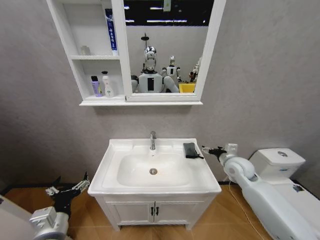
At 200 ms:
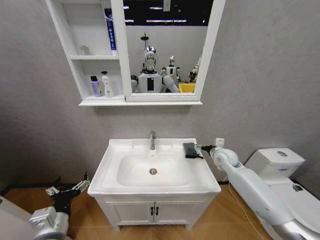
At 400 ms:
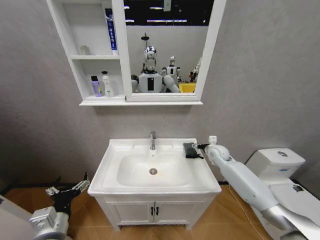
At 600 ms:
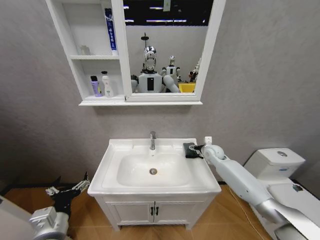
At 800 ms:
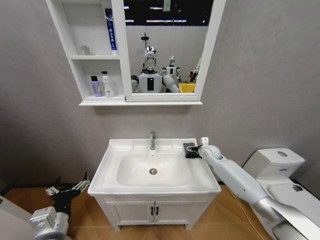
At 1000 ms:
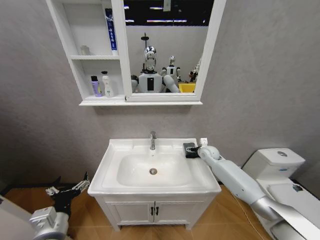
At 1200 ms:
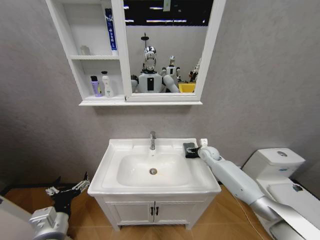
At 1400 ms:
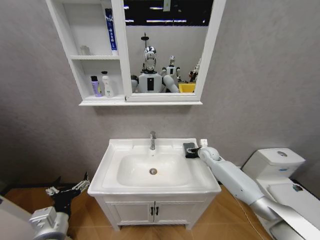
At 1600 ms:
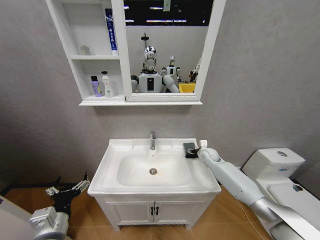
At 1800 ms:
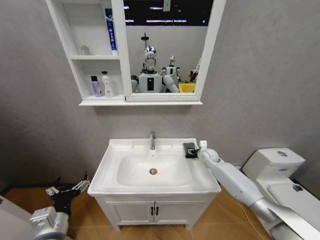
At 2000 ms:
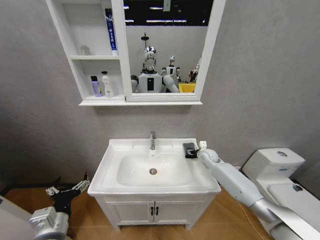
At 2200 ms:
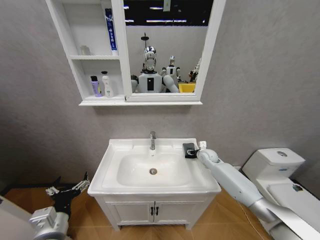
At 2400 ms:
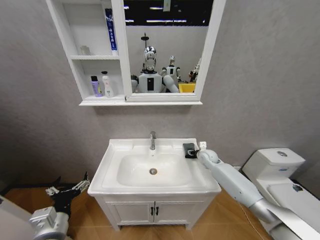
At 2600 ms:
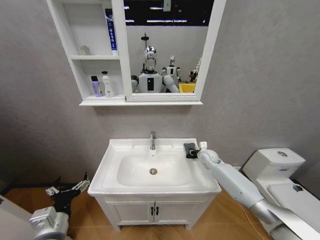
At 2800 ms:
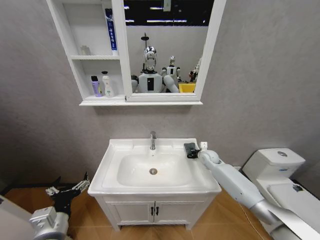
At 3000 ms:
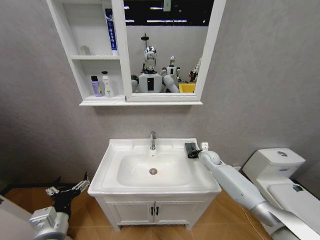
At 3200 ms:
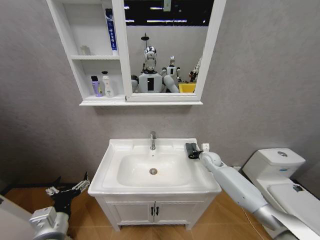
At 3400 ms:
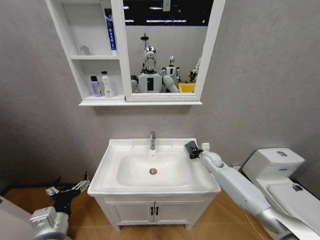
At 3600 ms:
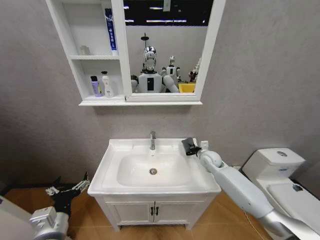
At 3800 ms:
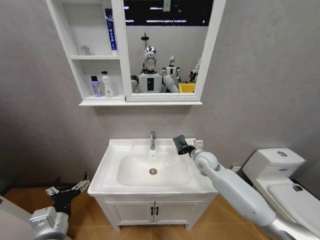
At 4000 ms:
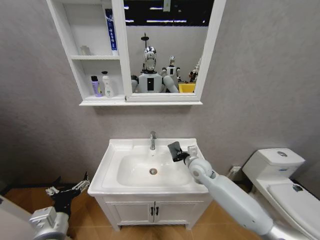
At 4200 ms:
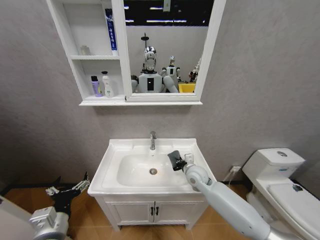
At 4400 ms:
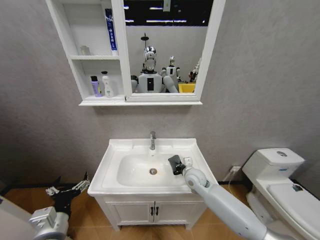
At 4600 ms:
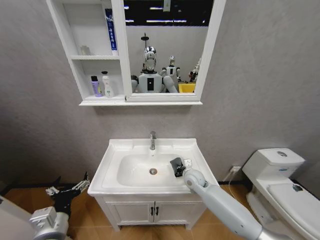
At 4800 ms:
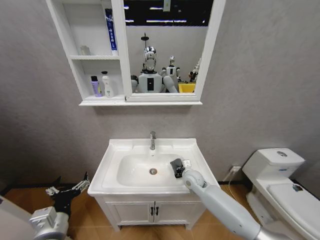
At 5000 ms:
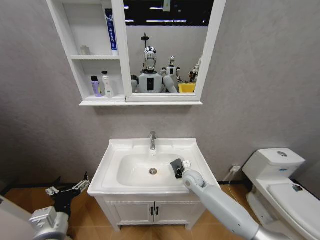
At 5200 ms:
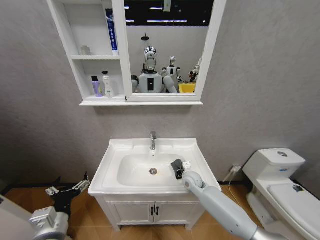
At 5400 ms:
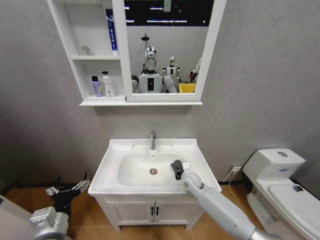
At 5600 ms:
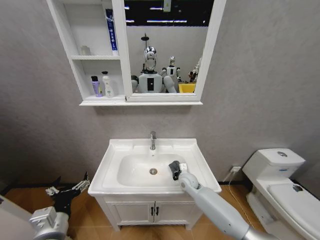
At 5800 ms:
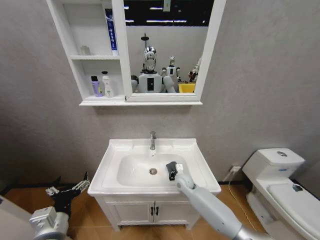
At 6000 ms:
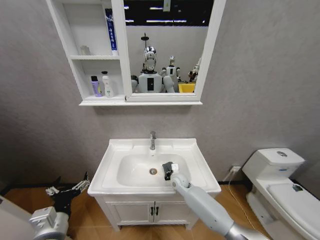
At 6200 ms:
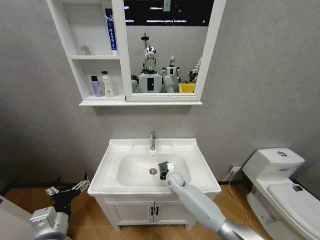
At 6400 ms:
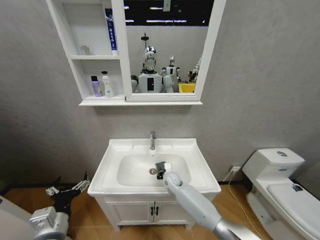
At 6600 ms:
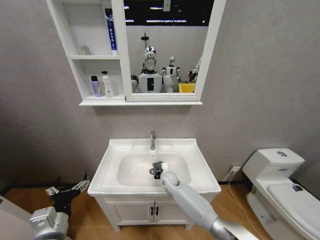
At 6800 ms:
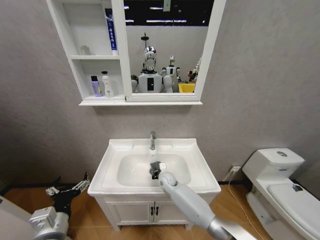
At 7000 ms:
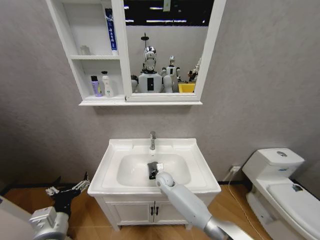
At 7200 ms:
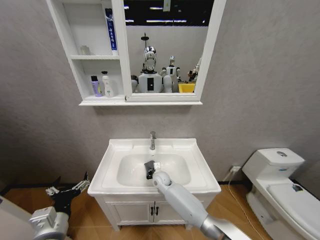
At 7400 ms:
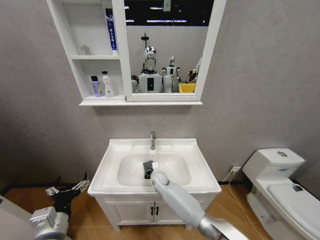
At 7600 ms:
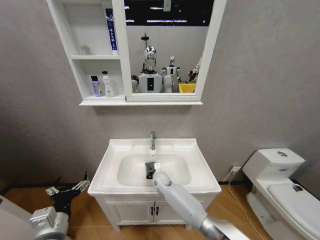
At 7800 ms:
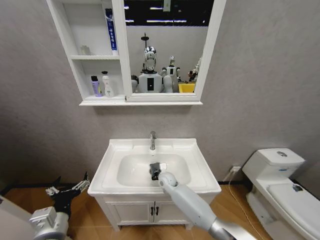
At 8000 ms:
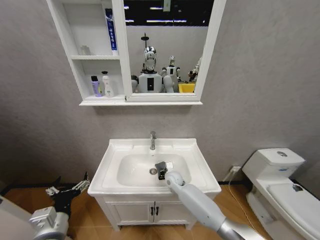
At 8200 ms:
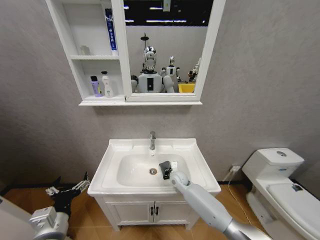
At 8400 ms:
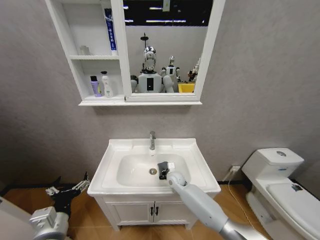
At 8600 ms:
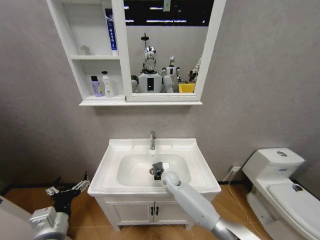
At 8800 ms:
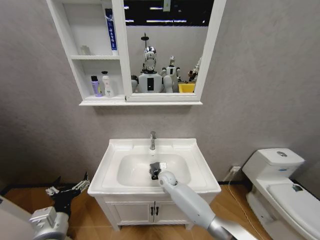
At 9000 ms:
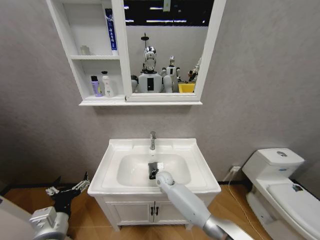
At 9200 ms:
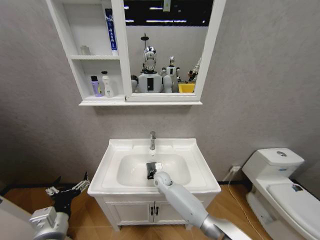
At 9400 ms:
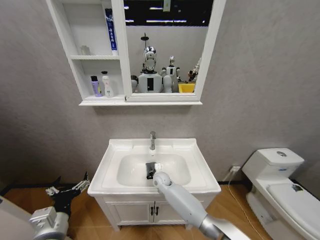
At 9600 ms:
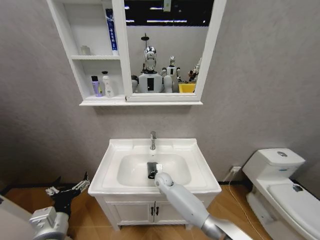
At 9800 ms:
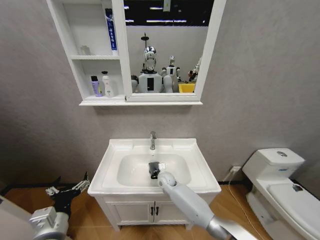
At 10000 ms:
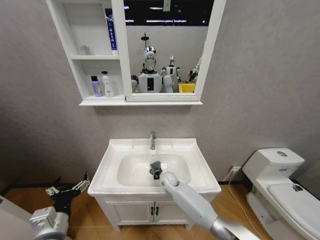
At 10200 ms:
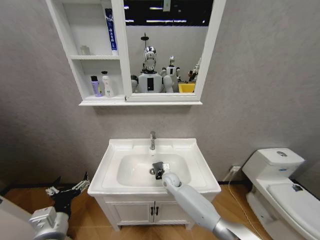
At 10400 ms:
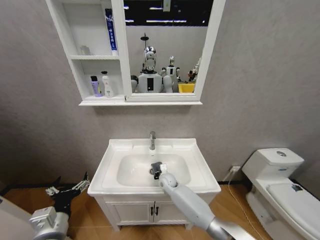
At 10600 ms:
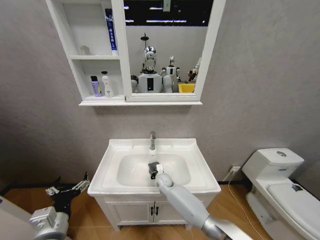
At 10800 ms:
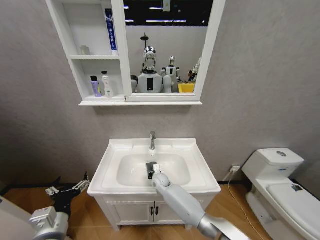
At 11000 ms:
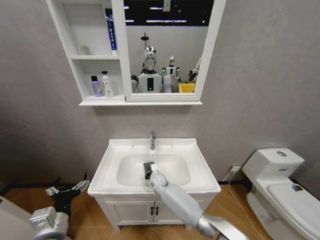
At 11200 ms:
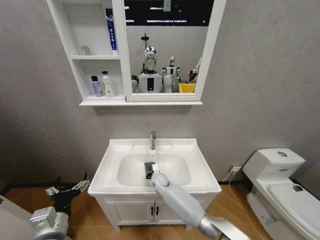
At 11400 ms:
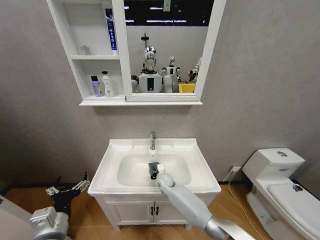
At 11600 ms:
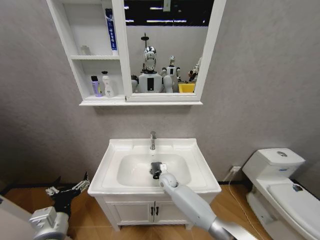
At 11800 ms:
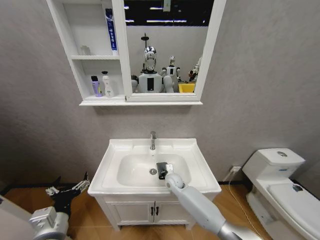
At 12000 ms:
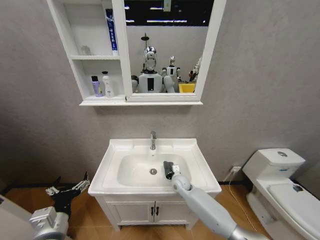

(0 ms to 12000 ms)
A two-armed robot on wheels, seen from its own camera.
Task of the whole recording: Move facial cleanser and shampoo from washbasin to cabinet, then wipe washbasin with towel.
0 ms - 1600 ms: The right gripper travels forward and downward by approximately 15 cm.
1600 ms - 3000 ms: The right gripper closes up.
3000 ms - 4400 ms: The right gripper moves to the left and backward, some 15 cm.
4400 ms - 6000 ms: The right gripper is displaced downward and to the left by approximately 10 cm.
6000 ms - 7600 ms: The right gripper moves to the left, approximately 10 cm.
7600 ms - 9000 ms: The right gripper reaches approximately 10 cm to the right, then returns.
9000 ms - 10400 ms: The grippers make only small movements.
10400 ms - 12000 ms: The right gripper moves to the right, approximately 5 cm.

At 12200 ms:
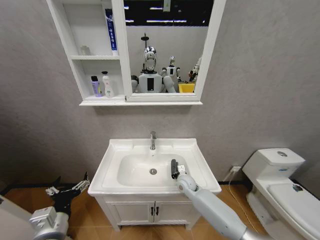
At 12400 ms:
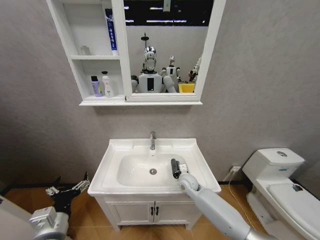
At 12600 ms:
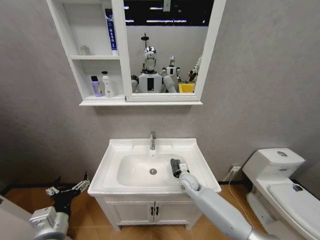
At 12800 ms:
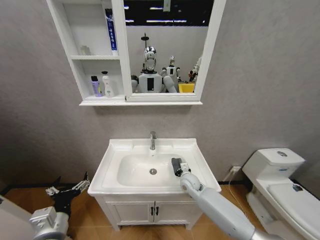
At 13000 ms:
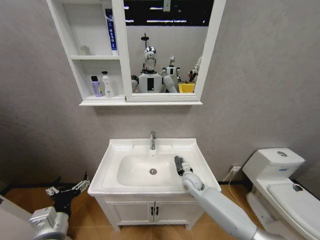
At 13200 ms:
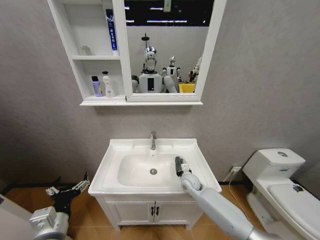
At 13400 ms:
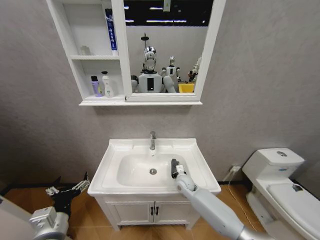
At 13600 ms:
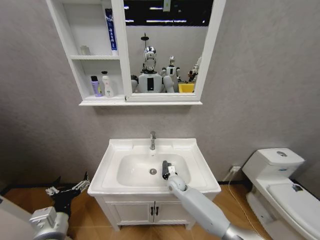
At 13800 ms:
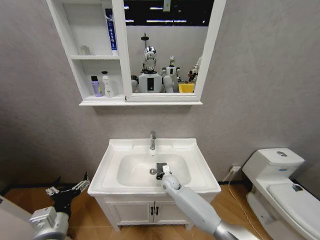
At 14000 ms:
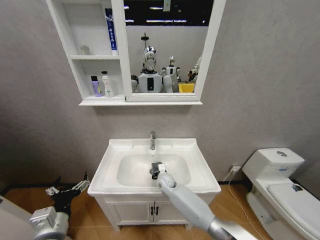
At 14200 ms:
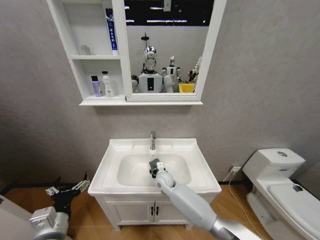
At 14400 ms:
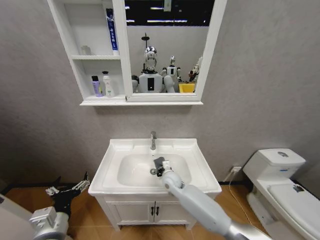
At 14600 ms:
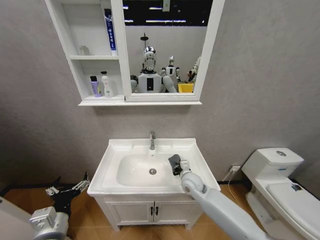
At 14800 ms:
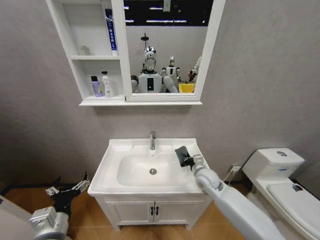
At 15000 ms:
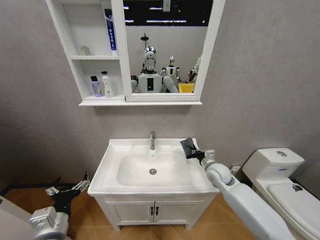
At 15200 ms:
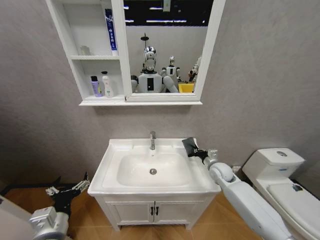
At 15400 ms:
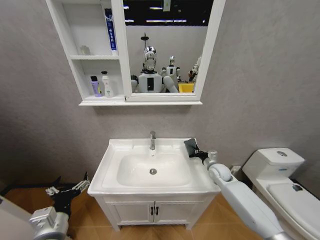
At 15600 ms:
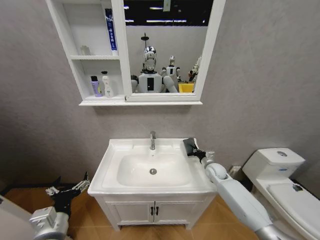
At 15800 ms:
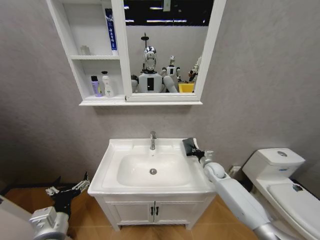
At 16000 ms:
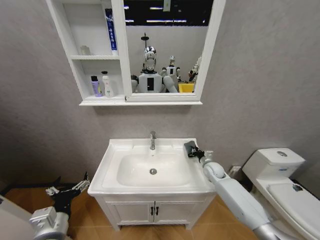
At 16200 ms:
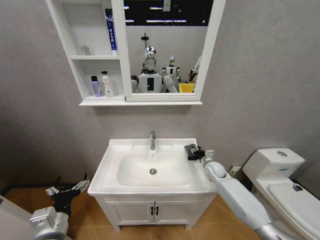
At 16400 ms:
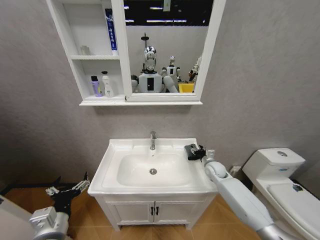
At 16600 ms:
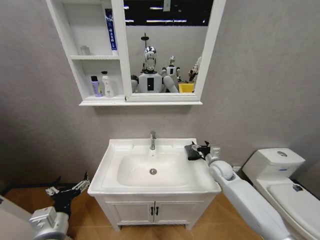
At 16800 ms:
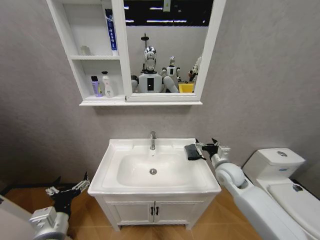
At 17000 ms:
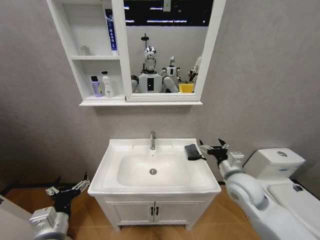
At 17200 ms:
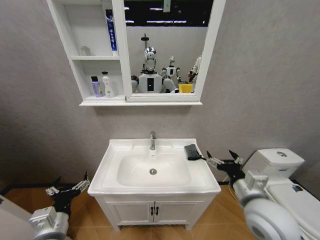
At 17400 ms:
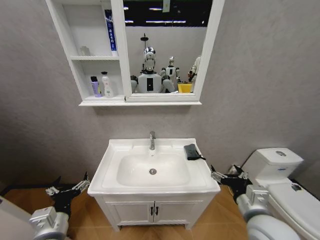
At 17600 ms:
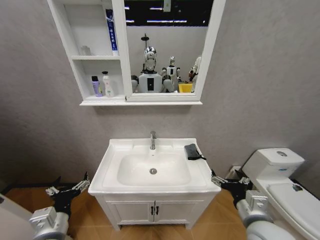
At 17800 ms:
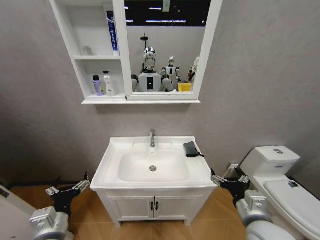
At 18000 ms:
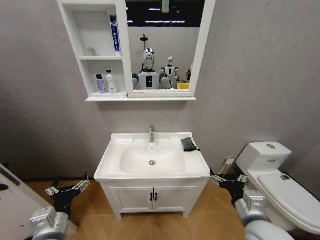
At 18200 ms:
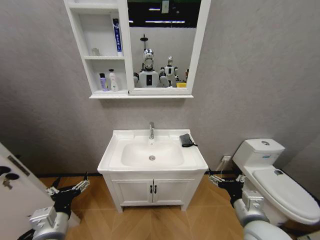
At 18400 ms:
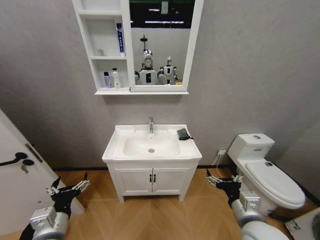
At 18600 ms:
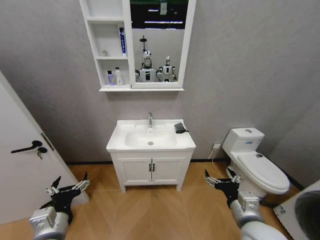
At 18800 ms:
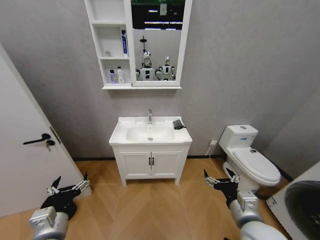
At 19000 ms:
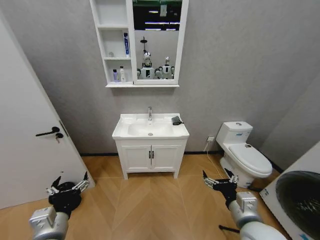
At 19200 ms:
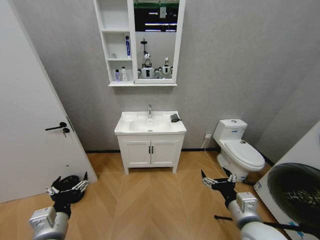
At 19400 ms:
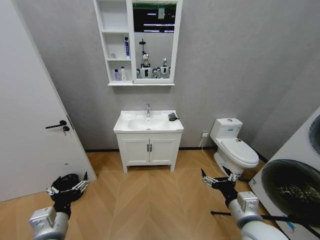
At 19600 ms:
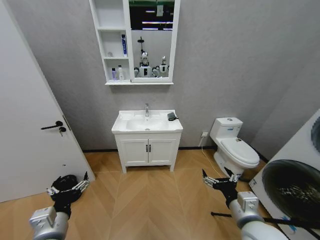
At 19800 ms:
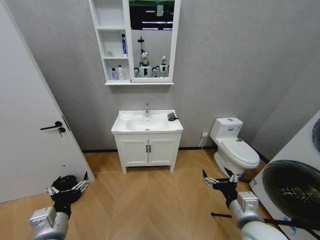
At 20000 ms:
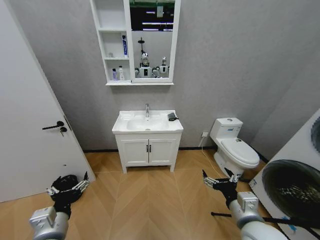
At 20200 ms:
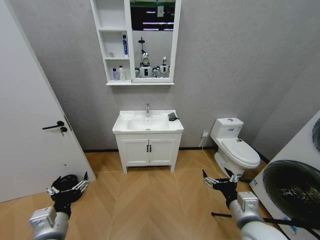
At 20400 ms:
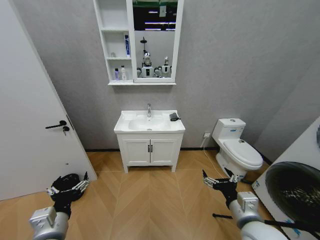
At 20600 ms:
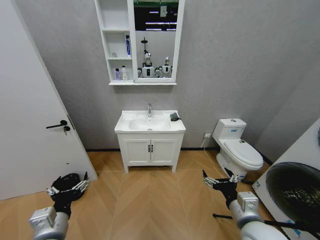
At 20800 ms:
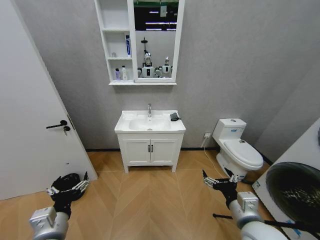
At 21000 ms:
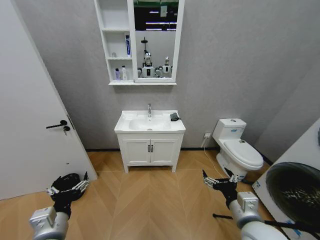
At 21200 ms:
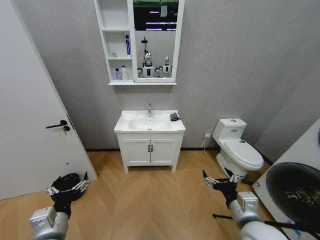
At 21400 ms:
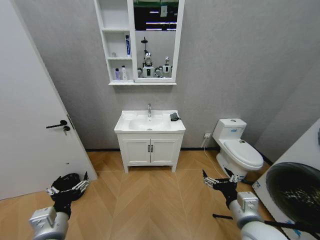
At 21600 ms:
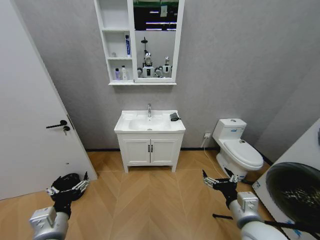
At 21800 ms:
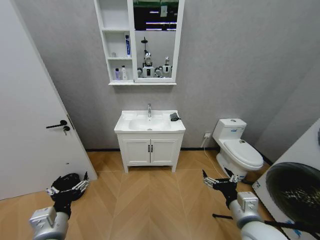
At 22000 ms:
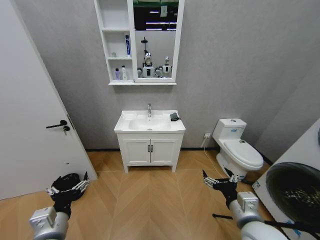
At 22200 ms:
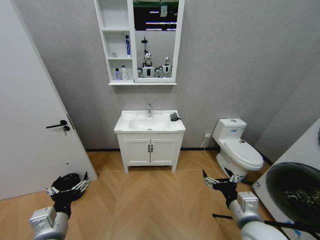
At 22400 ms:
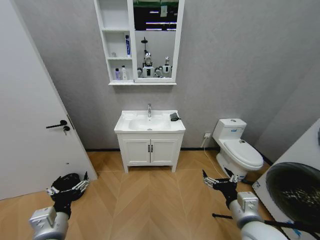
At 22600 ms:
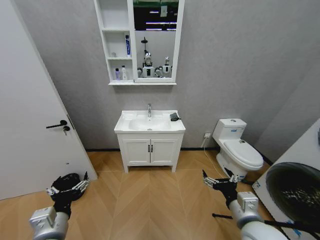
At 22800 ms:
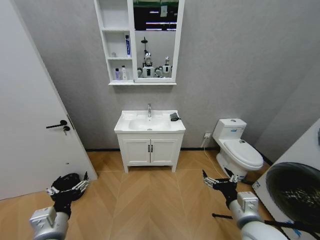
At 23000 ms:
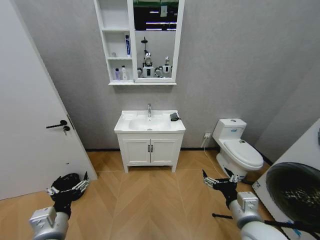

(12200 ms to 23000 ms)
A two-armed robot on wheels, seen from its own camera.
Task of the whole recording: Move facial cleanser and shampoo from washbasin to cabinet, then wipe washbasin with towel.
12200 ms - 13800 ms: The right gripper shifts approximately 10 cm to the left.
13800 ms - 15200 ms: The right gripper goes roughly 25 cm to the right and upward.
15200 ms - 16800 ms: The right gripper is displaced upward and backward by approximately 10 cm, and opens up.
16800 ms - 18400 ms: The right gripper travels backward by about 20 cm.
20000 ms - 23000 ms: Both grippers stay about where they are.
